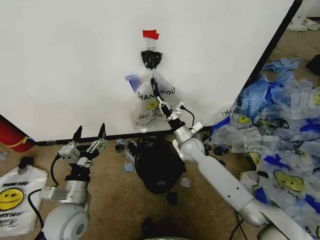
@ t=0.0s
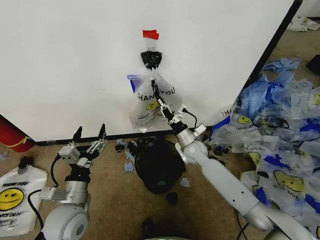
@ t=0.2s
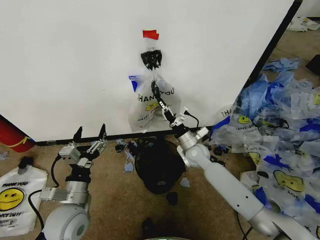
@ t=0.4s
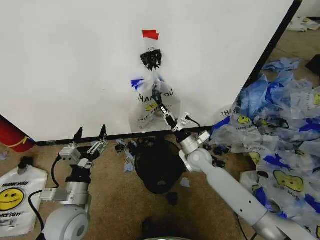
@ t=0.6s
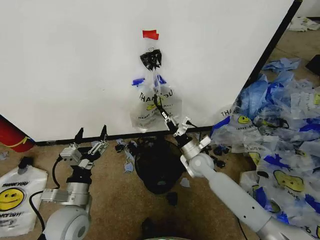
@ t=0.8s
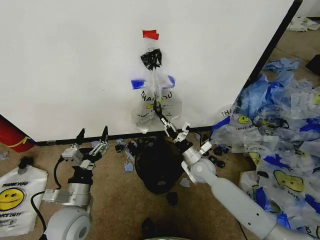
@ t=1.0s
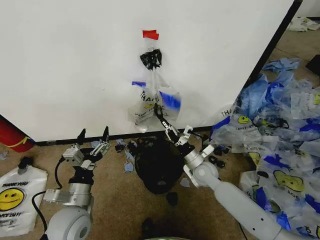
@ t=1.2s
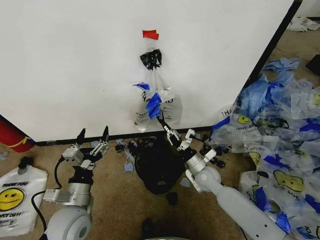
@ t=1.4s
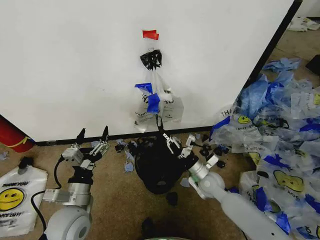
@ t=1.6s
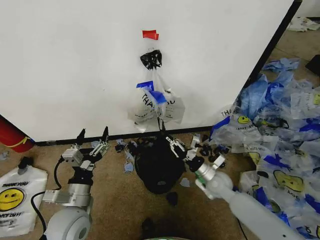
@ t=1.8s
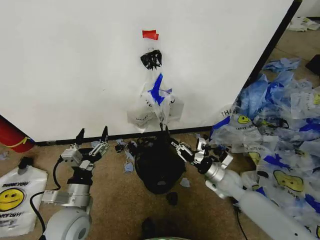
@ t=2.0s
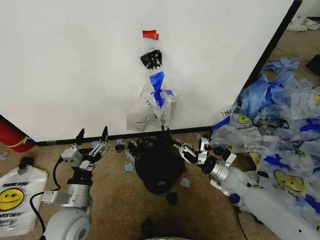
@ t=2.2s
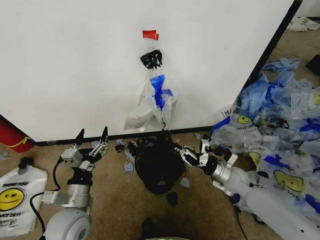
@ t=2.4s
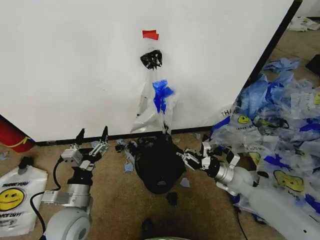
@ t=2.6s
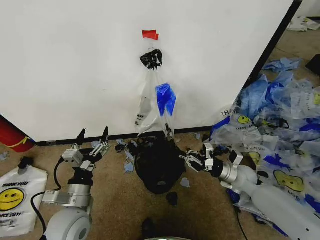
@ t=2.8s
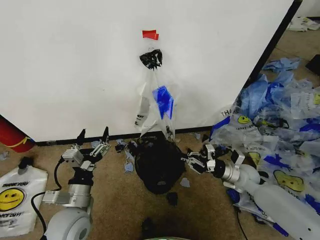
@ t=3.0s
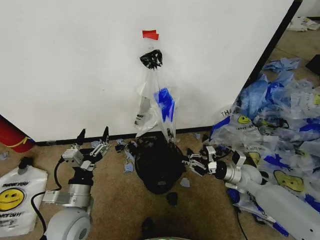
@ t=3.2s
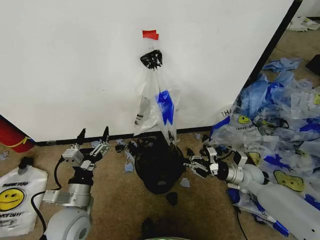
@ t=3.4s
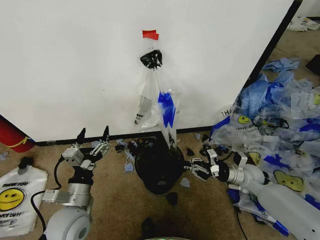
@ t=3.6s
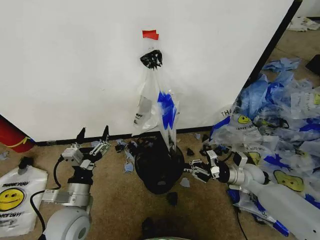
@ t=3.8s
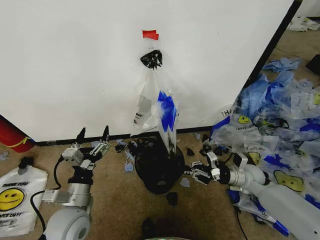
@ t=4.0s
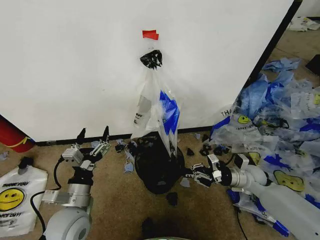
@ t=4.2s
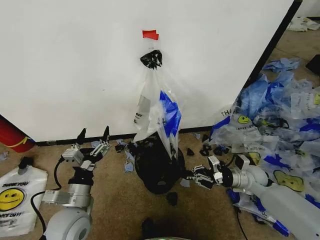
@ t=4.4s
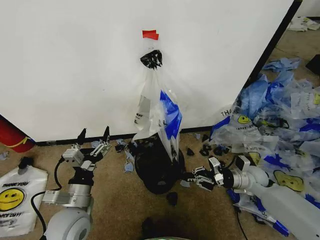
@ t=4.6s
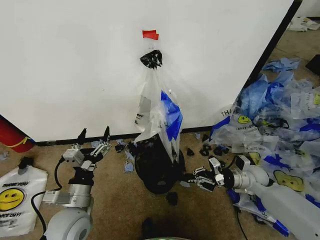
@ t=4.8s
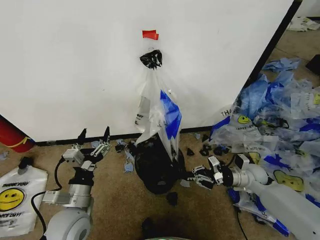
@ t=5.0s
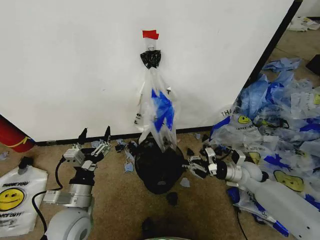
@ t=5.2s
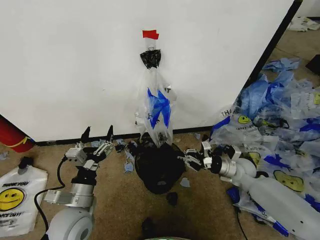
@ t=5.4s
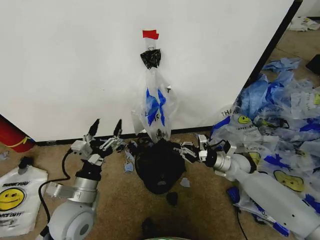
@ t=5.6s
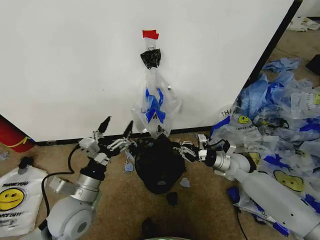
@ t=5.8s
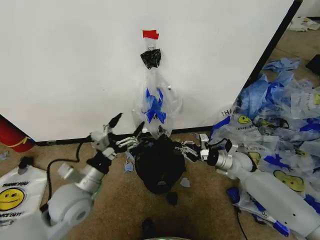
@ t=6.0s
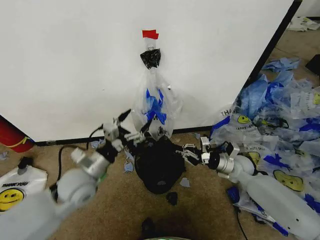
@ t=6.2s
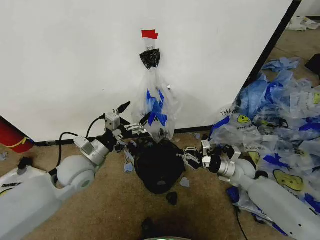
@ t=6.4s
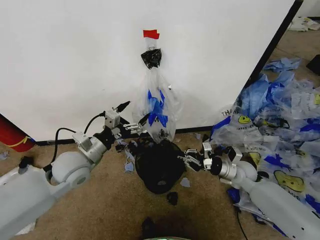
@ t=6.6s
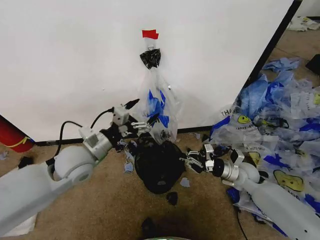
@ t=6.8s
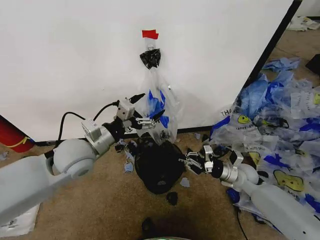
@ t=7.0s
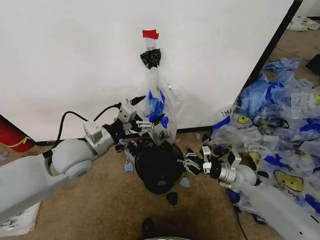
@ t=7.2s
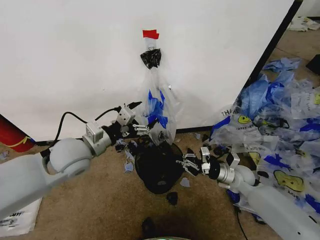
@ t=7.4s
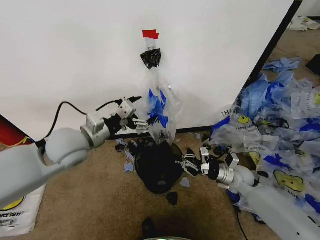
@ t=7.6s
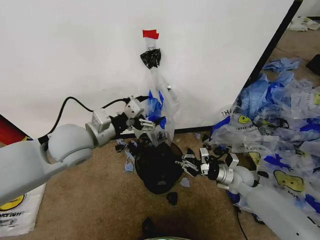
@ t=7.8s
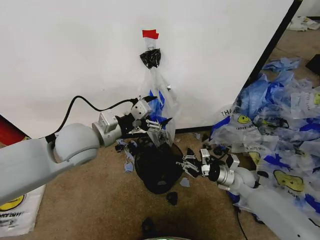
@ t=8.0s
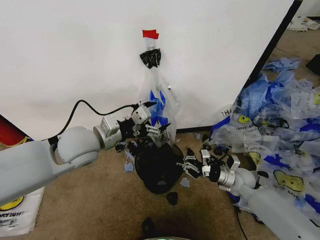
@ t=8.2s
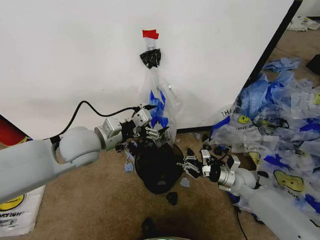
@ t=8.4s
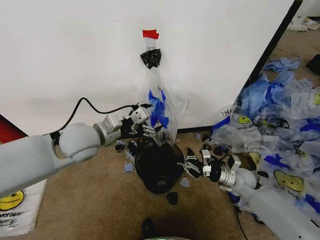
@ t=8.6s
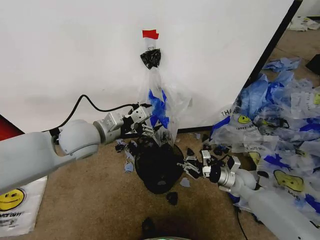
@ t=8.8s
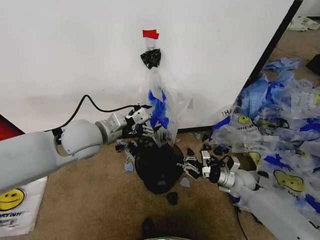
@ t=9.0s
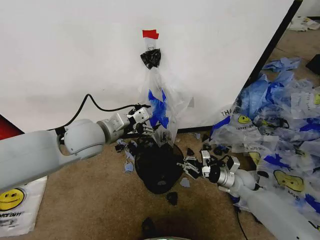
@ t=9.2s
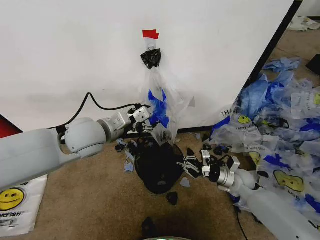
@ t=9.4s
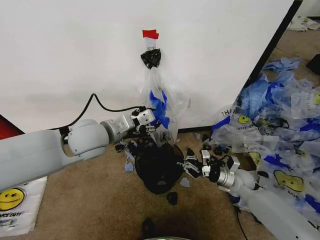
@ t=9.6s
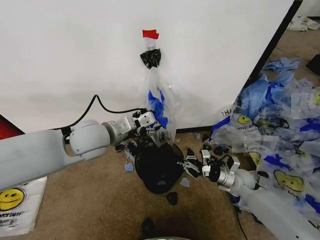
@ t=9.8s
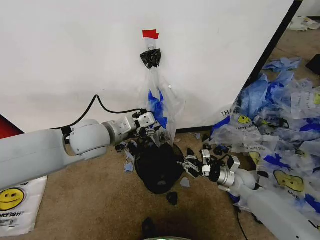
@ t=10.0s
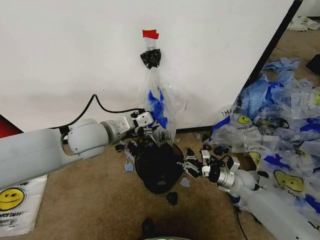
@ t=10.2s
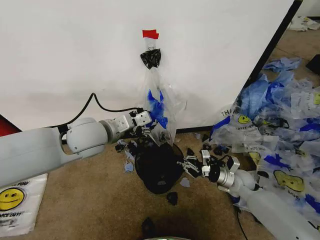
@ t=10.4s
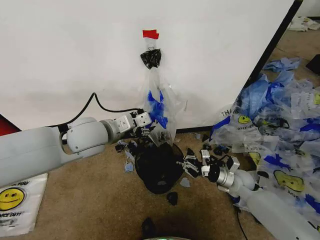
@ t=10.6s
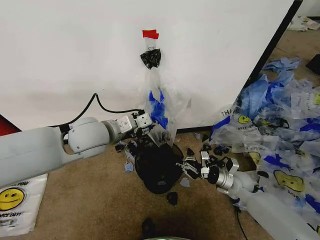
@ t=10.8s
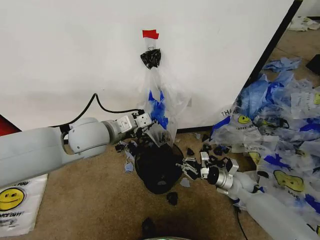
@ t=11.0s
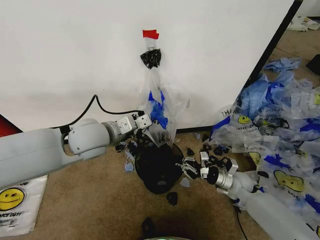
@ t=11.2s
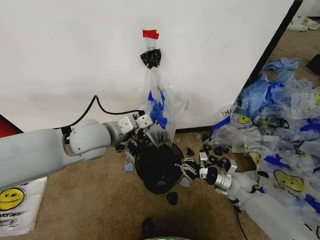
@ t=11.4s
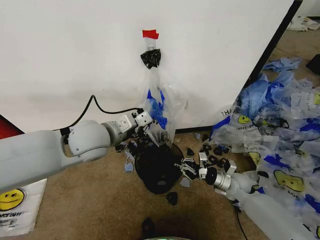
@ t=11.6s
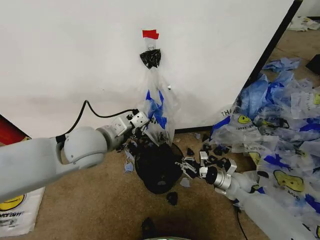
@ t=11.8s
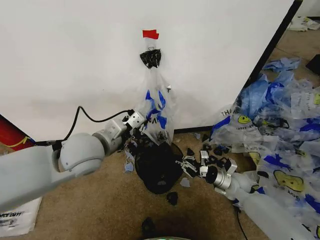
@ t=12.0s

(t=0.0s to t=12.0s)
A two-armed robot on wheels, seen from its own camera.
Task of the whole recording: Pick up the garbage bag from the wall and place it over the trash bin.
t=0.0s - t=1.6s: The right gripper moves backward, downward and to the right, approximately 15 cm.
t=1.6s - t=3.0s: The right gripper heads to the right, covering some 15 cm.
t=3.0s - t=4.4s: There are only small adjustments of the grippers.
t=4.4s - t=6.0s: The left gripper moves some 5 cm. The right gripper shifts by about 5 cm.
t=6.0s - t=7.6s: The left gripper travels upward and forward by approximately 15 cm; the right gripper moves roughly 5 cm.
t=7.6s - t=9.0s: There are only small adjustments of the grippers.
t=9.0s - t=10.4s: There are only small adjustments of the grippers.
t=10.4s - t=12.0s: The left gripper closes.

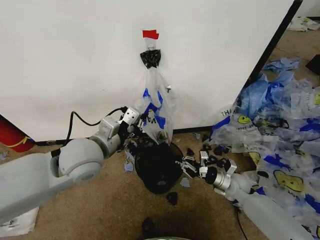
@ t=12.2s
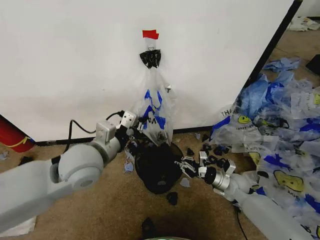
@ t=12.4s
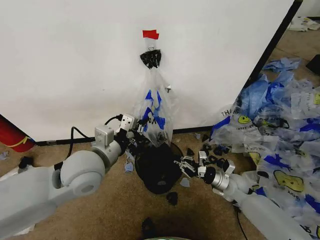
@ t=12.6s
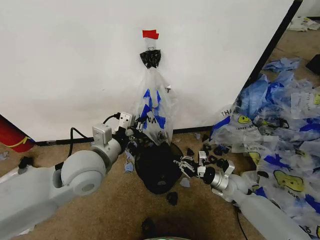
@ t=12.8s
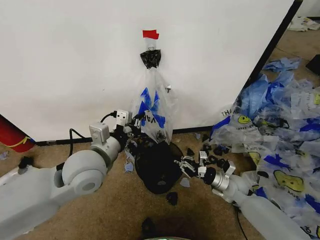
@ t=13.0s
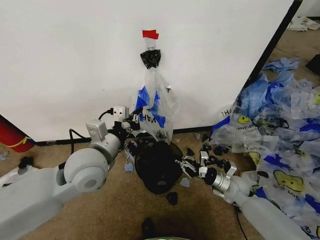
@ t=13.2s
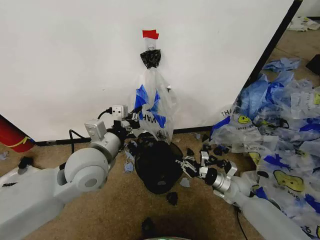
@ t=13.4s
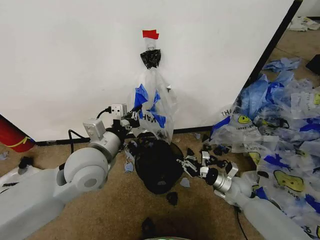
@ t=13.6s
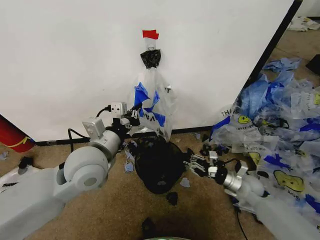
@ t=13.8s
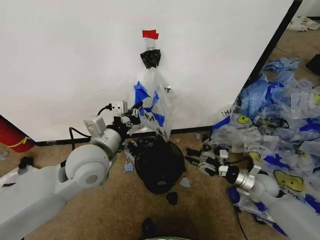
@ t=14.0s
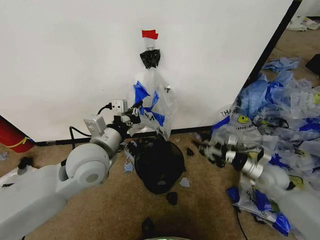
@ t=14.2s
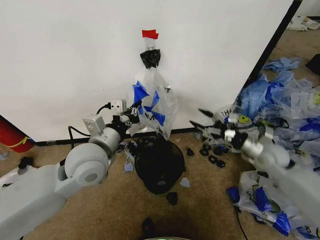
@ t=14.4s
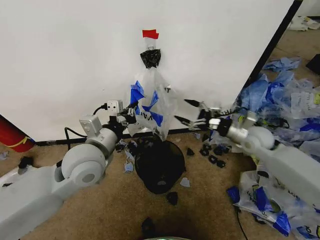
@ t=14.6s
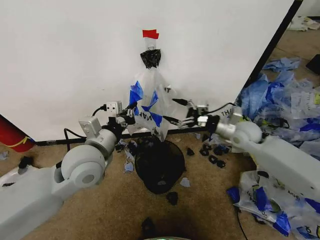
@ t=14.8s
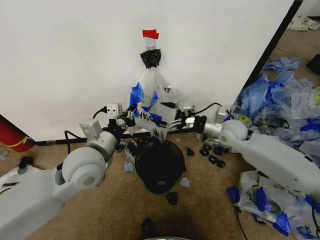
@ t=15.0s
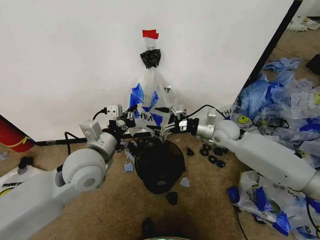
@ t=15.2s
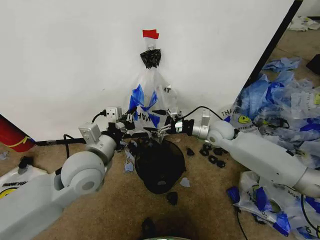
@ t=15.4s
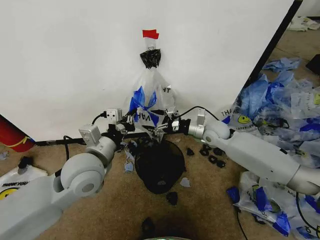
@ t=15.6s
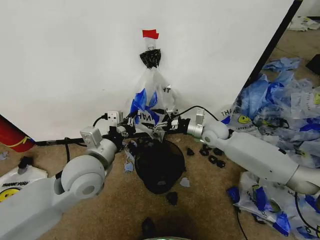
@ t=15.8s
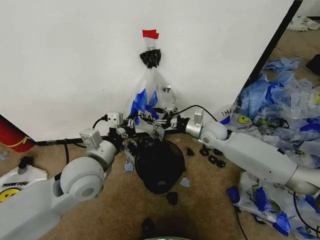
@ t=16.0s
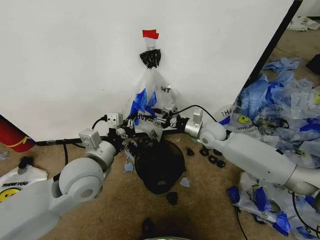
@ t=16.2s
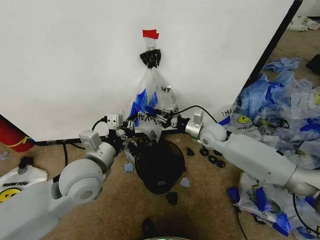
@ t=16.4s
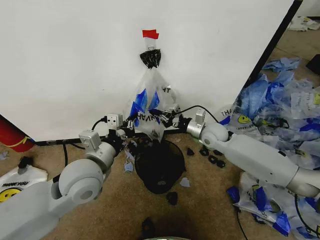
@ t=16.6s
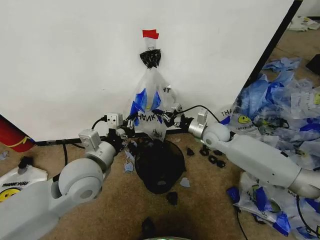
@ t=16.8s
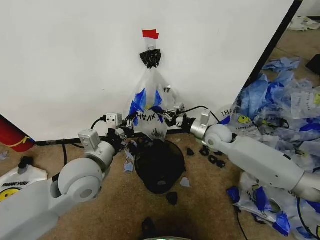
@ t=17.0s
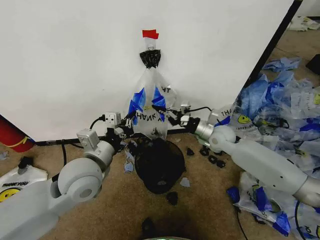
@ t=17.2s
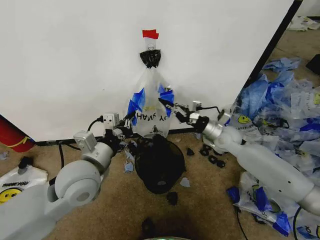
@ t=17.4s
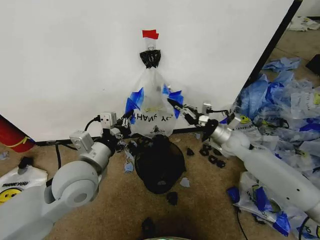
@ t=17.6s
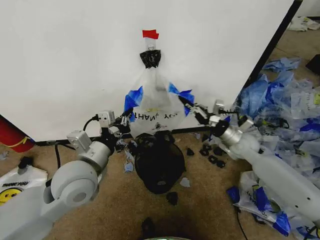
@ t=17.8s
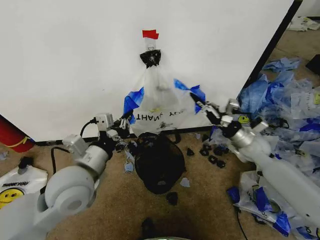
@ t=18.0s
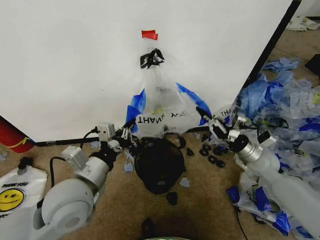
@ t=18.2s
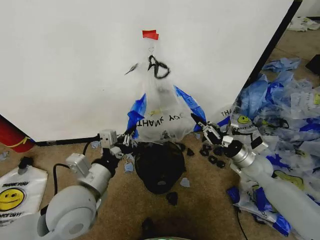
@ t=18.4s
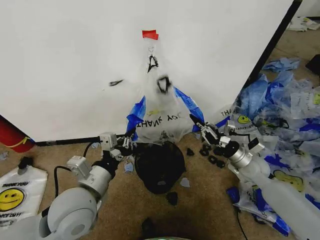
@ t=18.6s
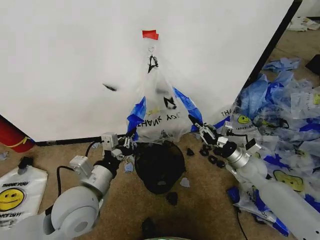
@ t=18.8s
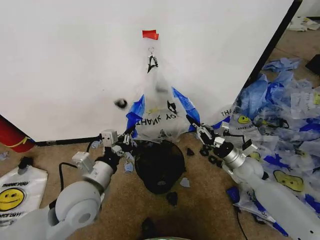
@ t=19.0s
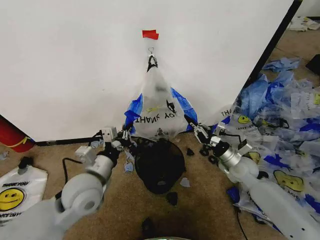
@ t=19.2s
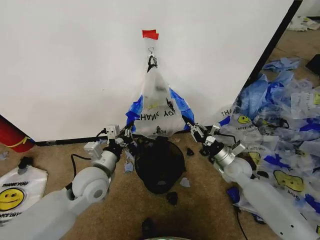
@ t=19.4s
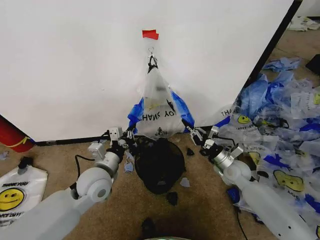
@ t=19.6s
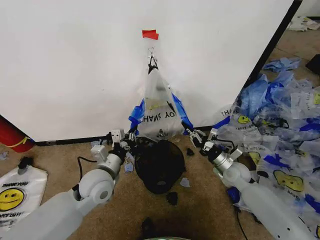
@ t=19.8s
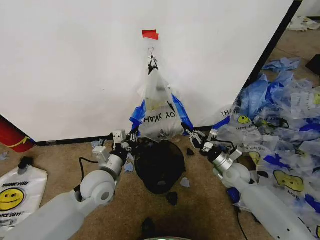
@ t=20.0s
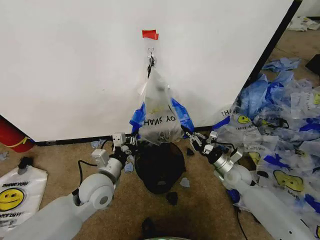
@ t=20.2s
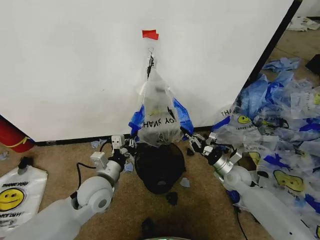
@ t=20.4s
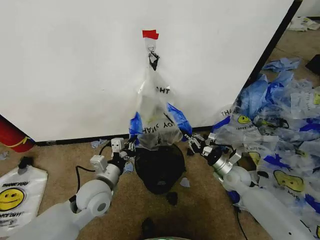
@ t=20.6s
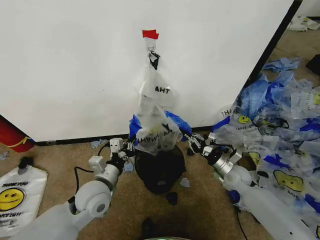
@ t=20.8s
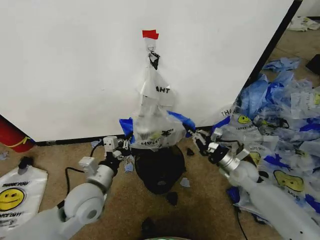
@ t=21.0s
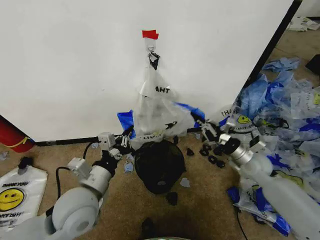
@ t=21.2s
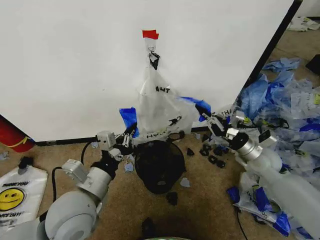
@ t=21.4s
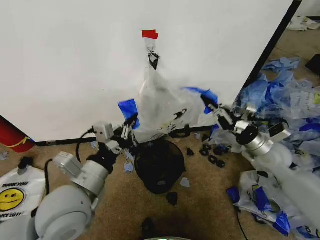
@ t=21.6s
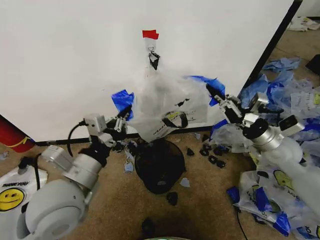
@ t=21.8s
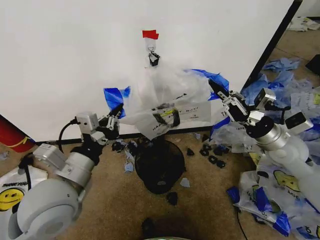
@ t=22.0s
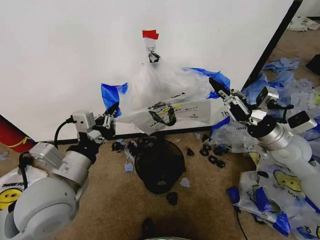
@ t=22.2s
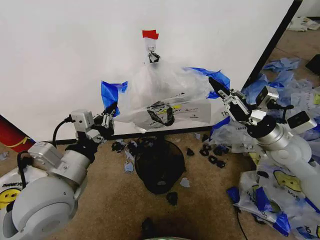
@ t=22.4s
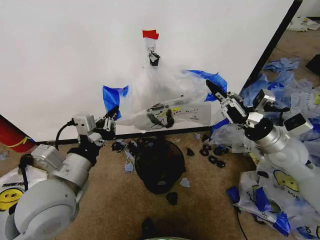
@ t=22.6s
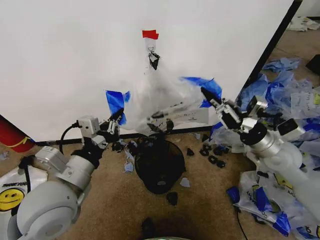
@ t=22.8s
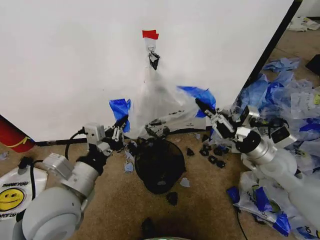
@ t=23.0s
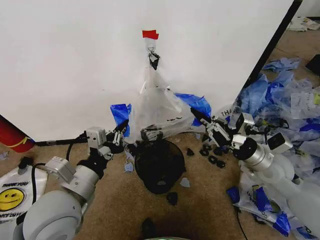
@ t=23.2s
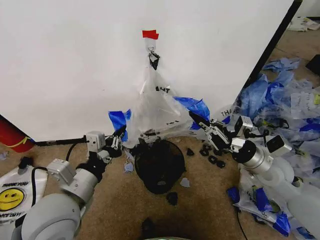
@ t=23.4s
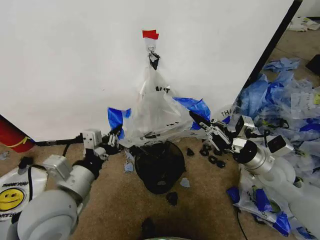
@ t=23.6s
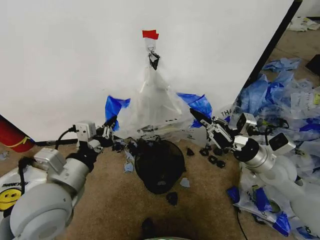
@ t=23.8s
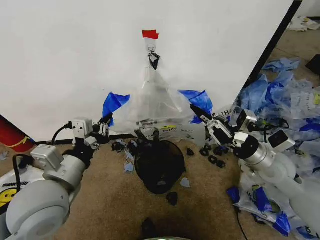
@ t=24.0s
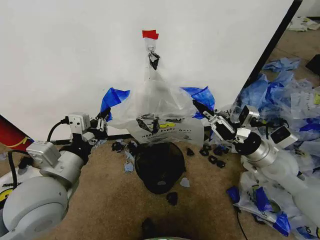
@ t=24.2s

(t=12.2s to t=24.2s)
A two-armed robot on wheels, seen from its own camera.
Task of the whole recording: Pick up the garbage bag from the wall and place it over the trash bin.
t=13.8s - t=15.2s: The right gripper shifts some 25 cm upward, forward and to the left, and opens.
t=15.2s - t=16.6s: The right gripper closes its fingers.
t=16.6s - t=18.2s: The right gripper is displaced to the right and backward by some 15 cm.
t=18.2s - t=19.8s: The left gripper shifts about 10 cm downward and forward. Meanwhile the right gripper is displaced downward by some 10 cm.
t=19.8s - t=21.2s: There are only small adjustments of the grippers.
t=21.2s - t=22.6s: The right gripper is displaced upward by roughly 20 cm, while the left gripper is displaced upward and backward by roughly 15 cm.
t=22.6s - t=24.2s: The right gripper shifts about 5 cm downward.
